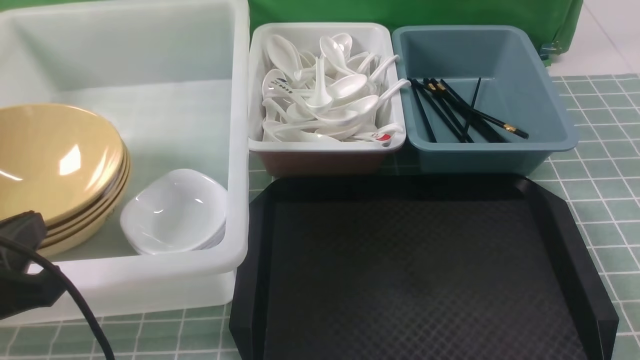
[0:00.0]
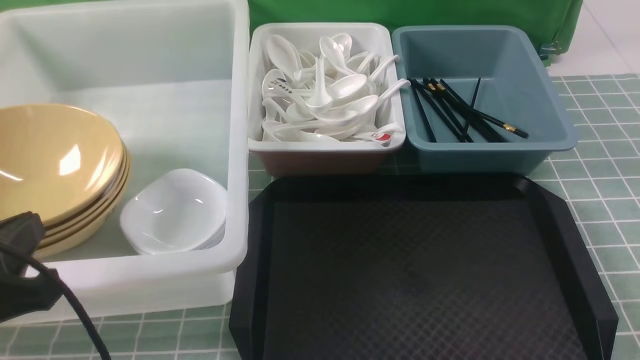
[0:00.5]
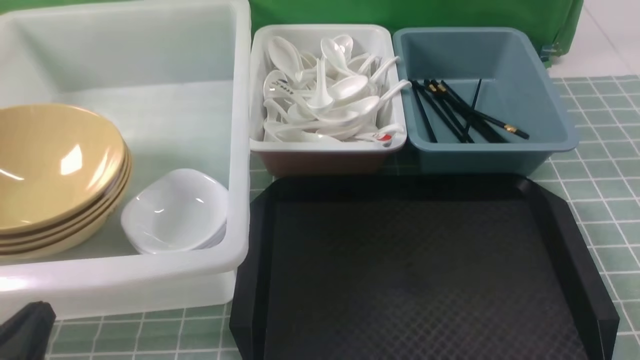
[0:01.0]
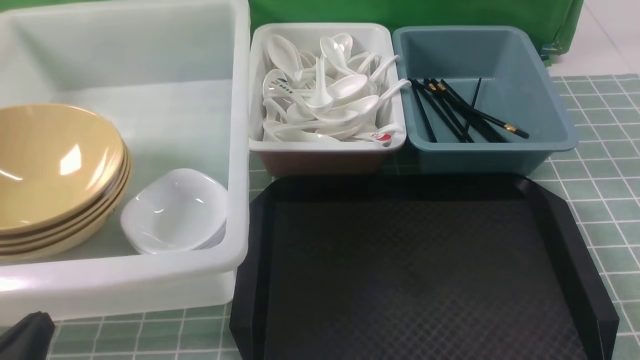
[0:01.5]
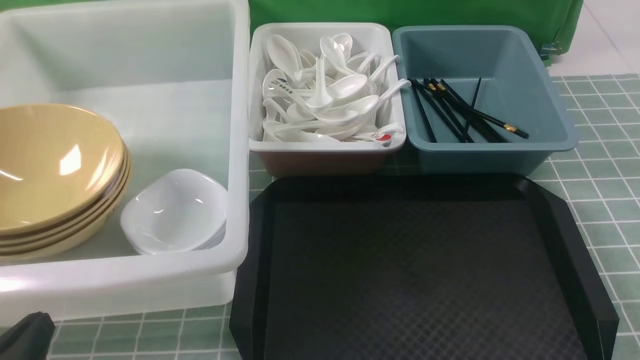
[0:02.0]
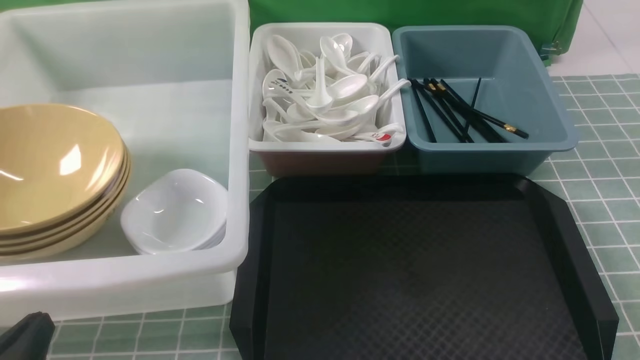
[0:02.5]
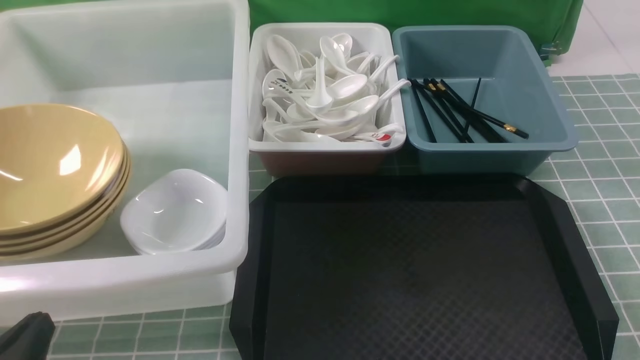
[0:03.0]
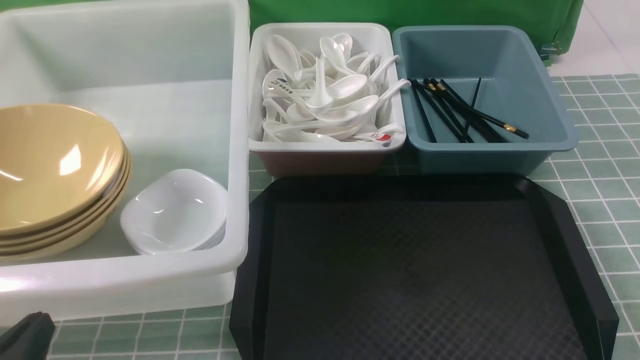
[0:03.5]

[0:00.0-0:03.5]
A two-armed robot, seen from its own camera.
Task of the whole recording: on blue table put chopsticks spoon bowls plates into blue grey white boxes.
0:00.0 to 0:02.0: The left gripper is displaced downward and backward by about 10 cm.
0:02.0 to 0:03.5: Both grippers stay about where they are.

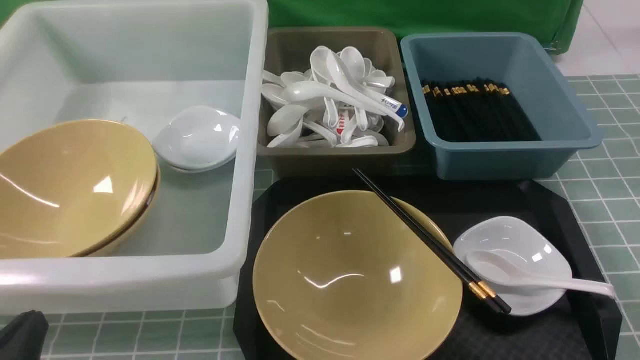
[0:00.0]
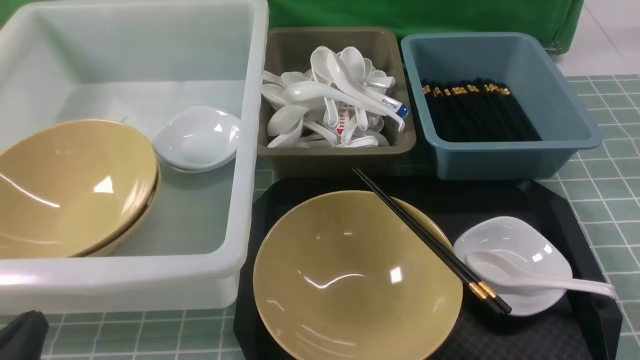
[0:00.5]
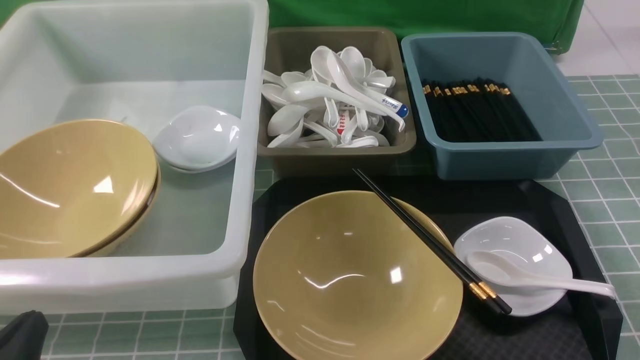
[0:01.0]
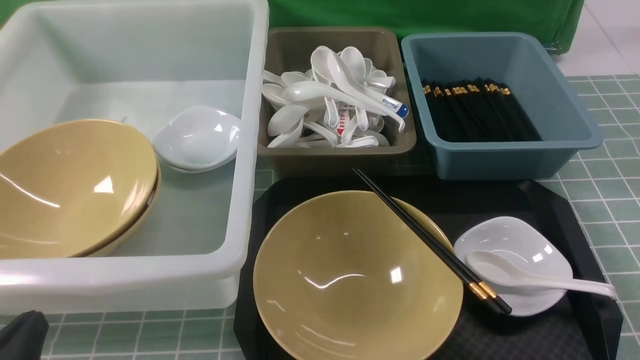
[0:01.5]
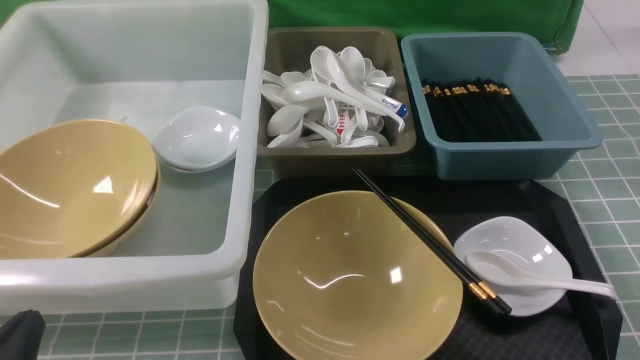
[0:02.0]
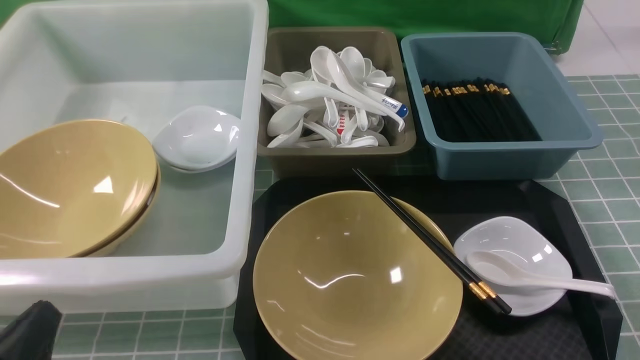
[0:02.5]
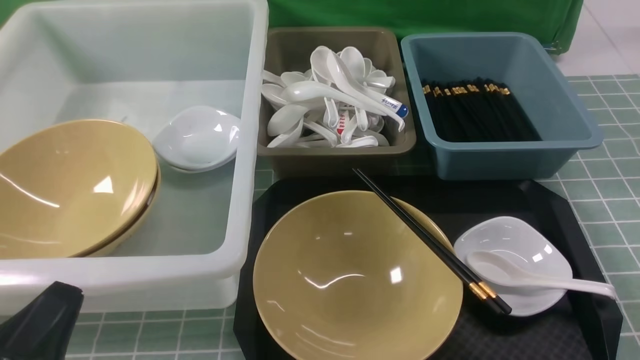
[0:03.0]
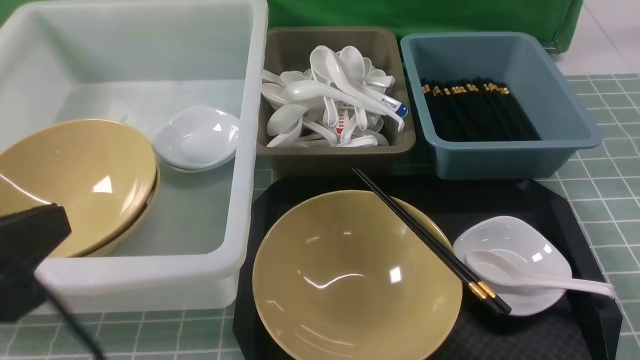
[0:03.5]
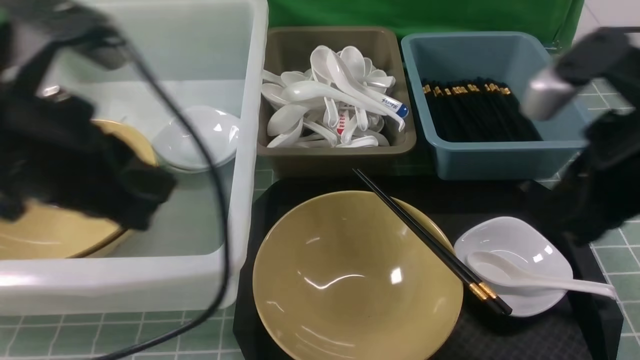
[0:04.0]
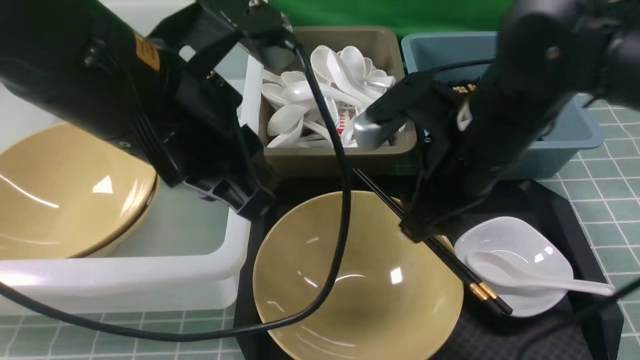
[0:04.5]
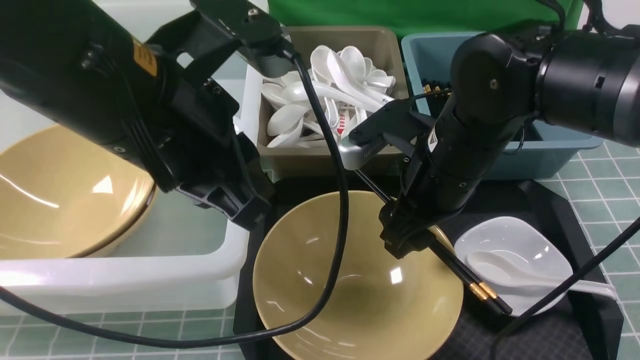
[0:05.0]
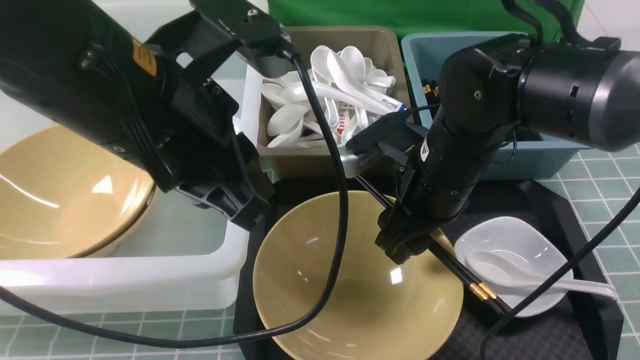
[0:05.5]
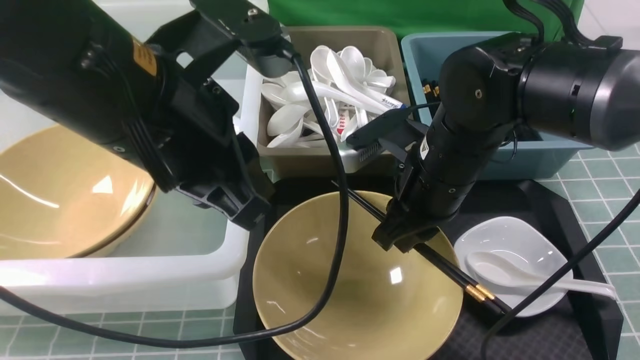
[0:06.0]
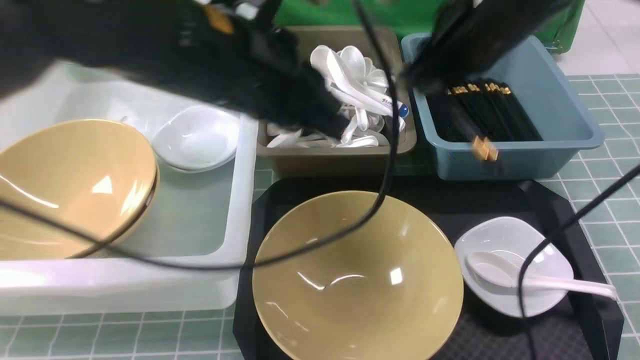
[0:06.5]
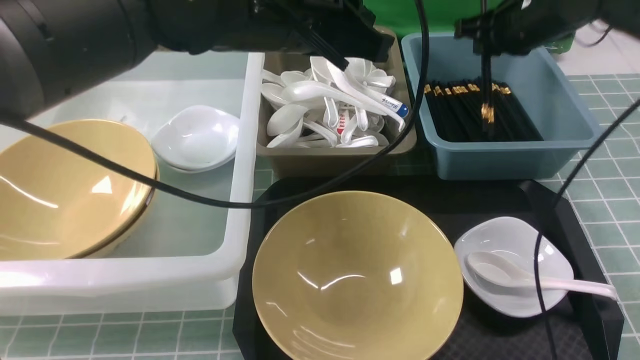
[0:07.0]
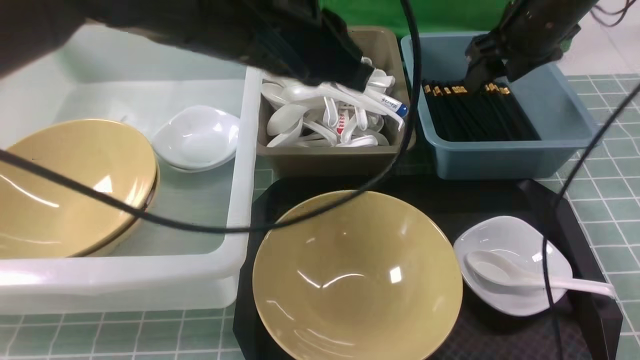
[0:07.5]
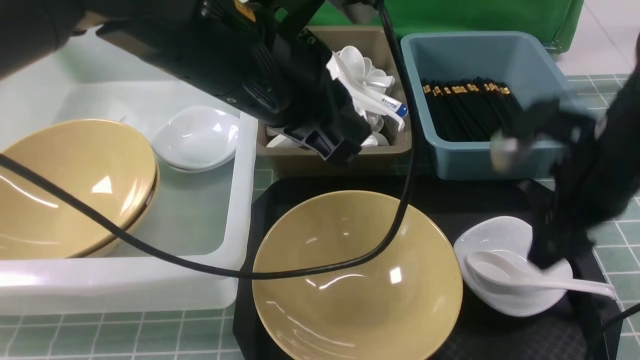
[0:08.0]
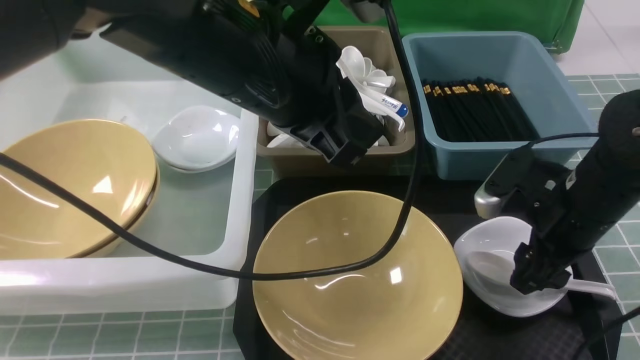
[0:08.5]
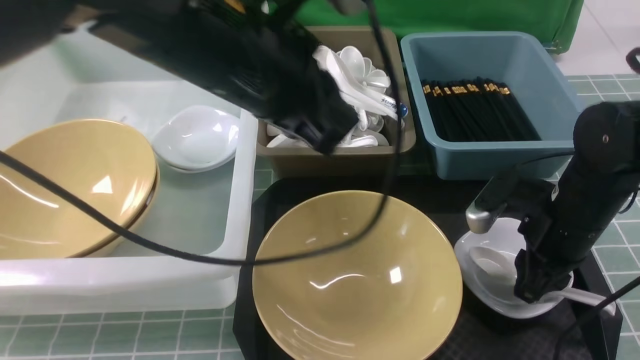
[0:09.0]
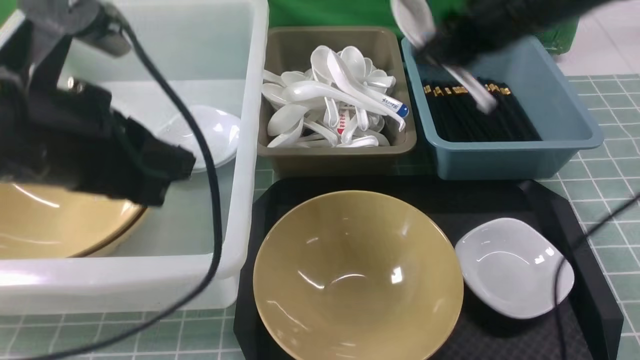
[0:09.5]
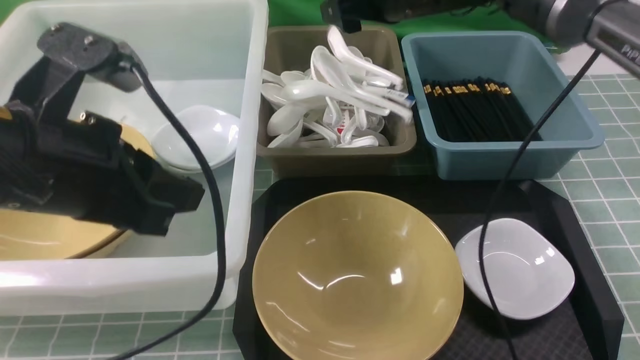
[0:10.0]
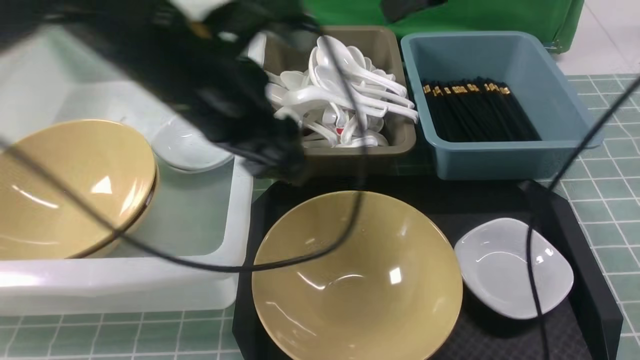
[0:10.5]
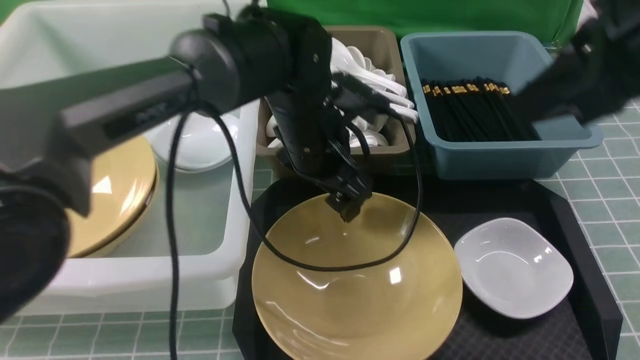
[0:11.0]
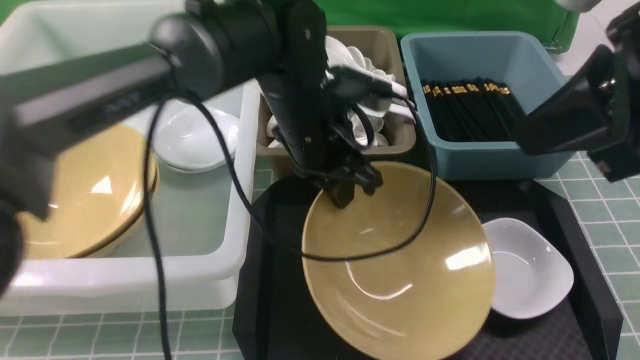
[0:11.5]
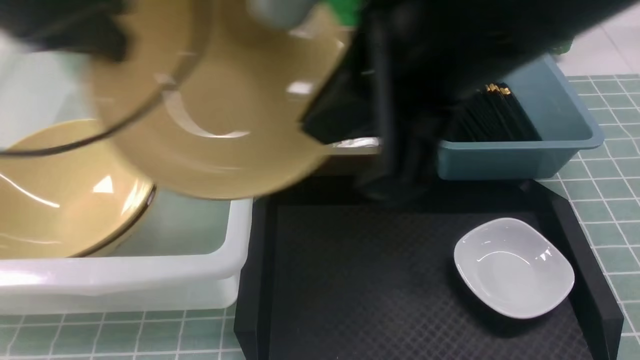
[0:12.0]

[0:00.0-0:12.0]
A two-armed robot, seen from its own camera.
Task of the whole recording: on blue table put chopsticks spoon bowls plates into blue grey white boxes.
Step, 0:00.0 to 0:06.0: use the right arm to grab the chopsticks.
Step, 0:06.5 to 0:07.5: use the right arm to put the chopsticks into the small storage box on the right.
Step, 0:08.0 to 0:09.0: use the right arm to grab the soup spoon in the middle.
Step, 0:09.5 to 0:10.0: use the right arm to put the soup spoon into the small storage box in the middle.
Step, 0:10.5 to 0:11.5: use the left arm to grab the yellow noodle bowl on the left.
0:00.0 to 0:02.0: Both grippers stay about where they are.
0:02.0 to 0:04.0: The left gripper heads upward, forward and to the right, covering roughly 25 cm. The right gripper heads upward, forward and to the left, covering some 25 cm, and closes up.
0:04.0 to 0:06.0: The left gripper travels to the right by approximately 5 cm, while the right gripper travels to the left, downward and forward by approximately 15 cm, and opens and closes again.
0:06.0 to 0:08.0: The right gripper heads to the right, covering approximately 15 cm, travels forward and back again, about 15 cm each way, and opens up.
0:08.0 to 0:10.0: The right gripper is displaced forward, to the left and upward by about 25 cm, and closes, then reopens, while the left gripper heads to the left and backward, covering approximately 15 cm.
0:10.0 to 0:12.0: The left gripper shifts about 10 cm forward and upward, goes to the right and returns, roughly 15 cm each way, and opens and closes again. Meanwhile the right gripper goes some 30 cm backward and upward, and closes up.

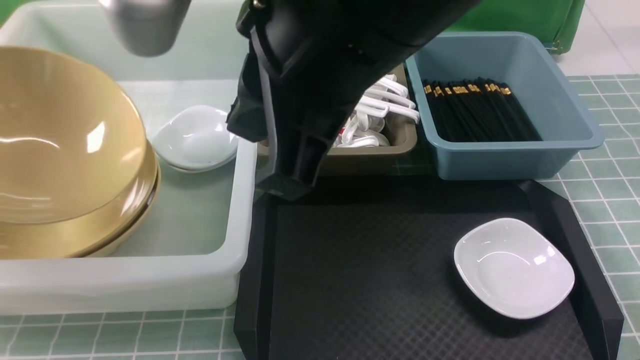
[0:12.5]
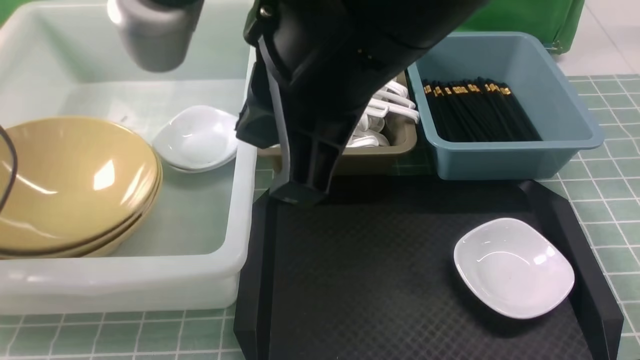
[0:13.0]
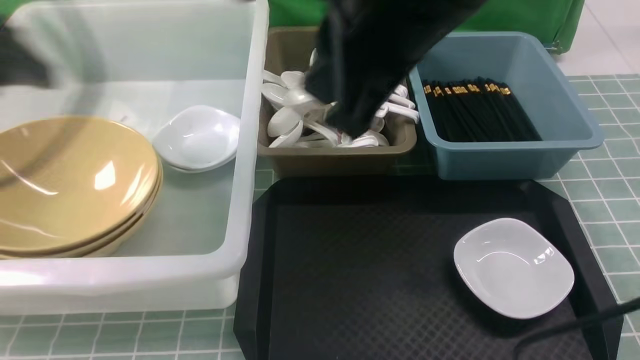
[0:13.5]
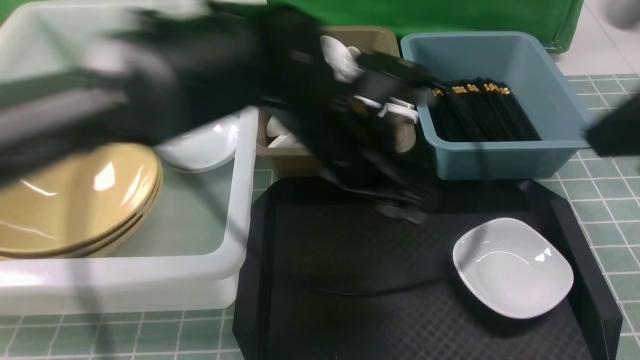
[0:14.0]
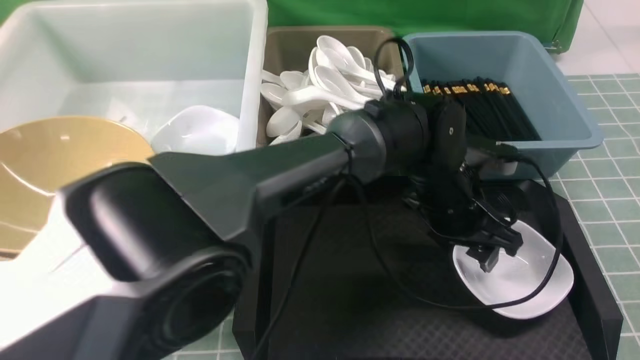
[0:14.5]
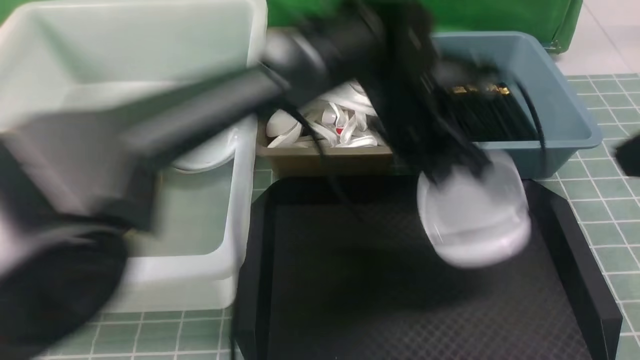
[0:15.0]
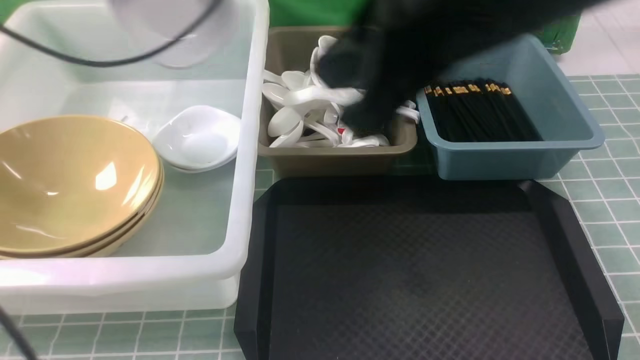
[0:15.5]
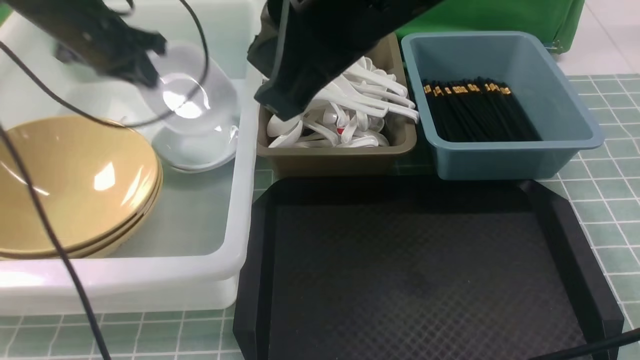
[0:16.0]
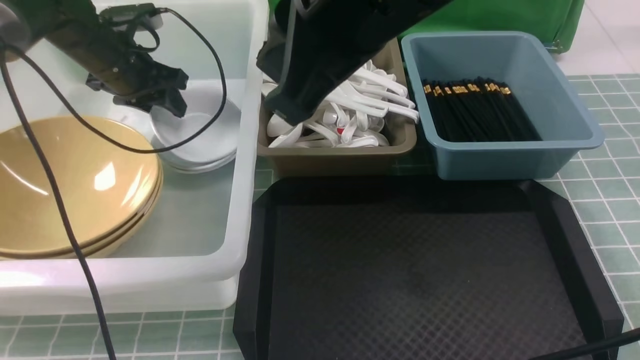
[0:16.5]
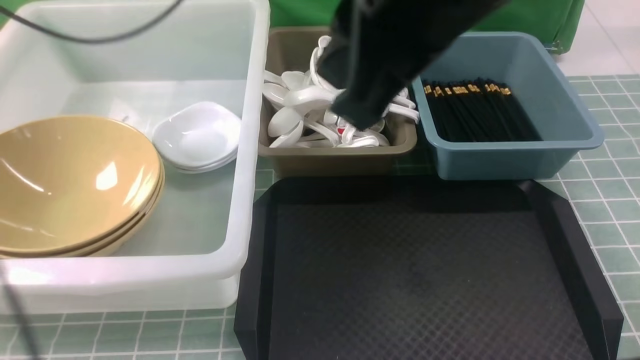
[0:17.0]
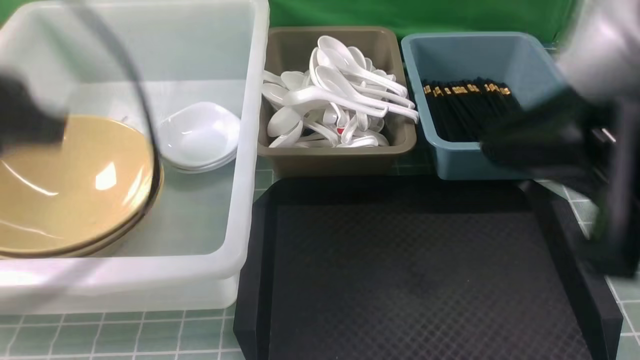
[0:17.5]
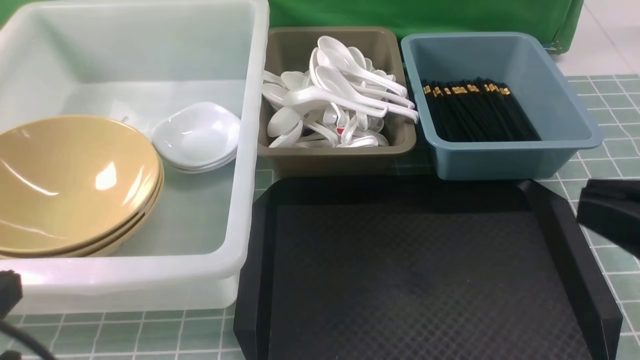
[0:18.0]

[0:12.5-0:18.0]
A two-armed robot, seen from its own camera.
Task of the whole recording: on blue table put chopsticks spoon bowls plates into blue grey white boxes.
Step, 0:13.5 to 0:14.5: use the left arm to grab the plate.
Step, 0:15.0 to 0:16.5: use the left arm to put the plate into the large storage box on the left.
0:12.5 to 0:14.5: The left gripper travels to the right by approximately 50 cm, and opens its fingers, while the right gripper heads to the right, covering roughly 25 cm.
0:14.5 to 0:16.0: The left gripper shifts roughly 40 cm to the left, and closes. Meanwhile the right gripper is displaced to the left and forward by approximately 25 cm.
0:16.0 to 0:18.0: The left gripper travels backward by roughly 40 cm, and opens, then closes once more. Meanwhile the right gripper is displaced to the right, backward and downward by about 25 cm.
